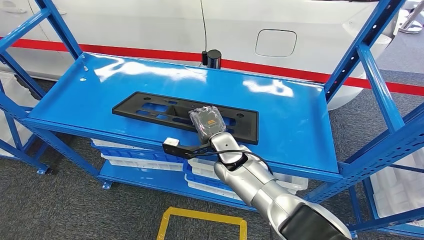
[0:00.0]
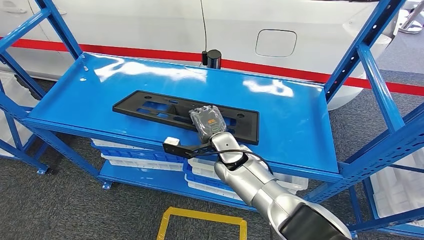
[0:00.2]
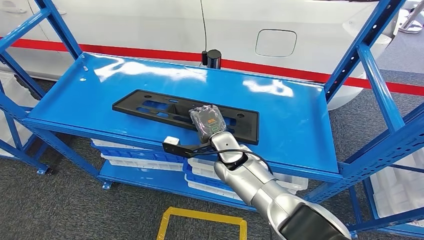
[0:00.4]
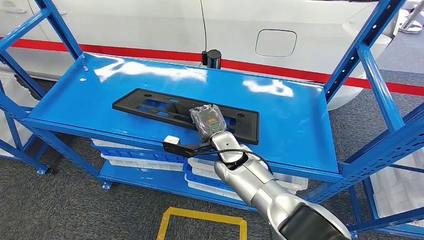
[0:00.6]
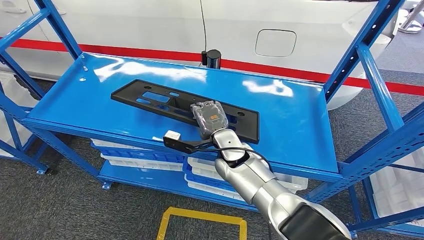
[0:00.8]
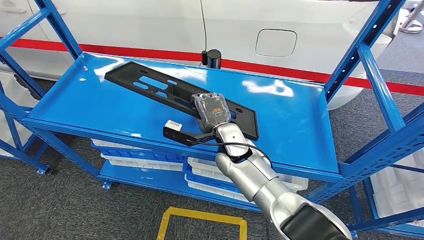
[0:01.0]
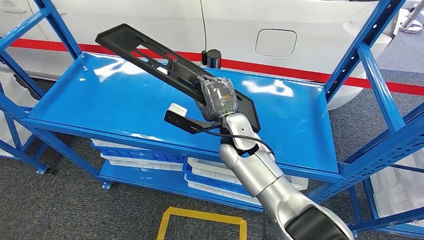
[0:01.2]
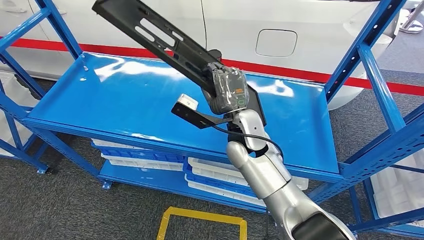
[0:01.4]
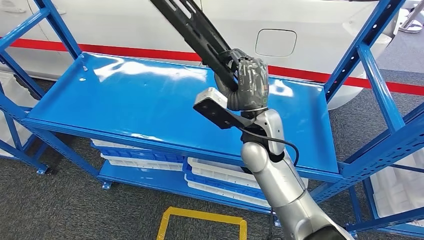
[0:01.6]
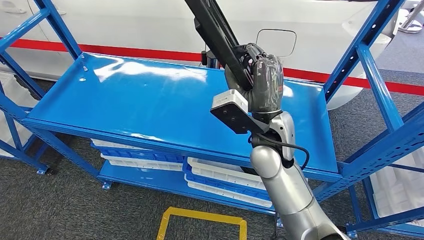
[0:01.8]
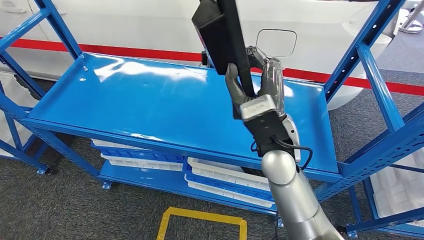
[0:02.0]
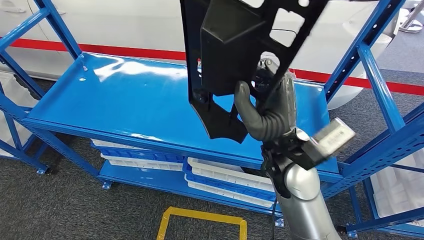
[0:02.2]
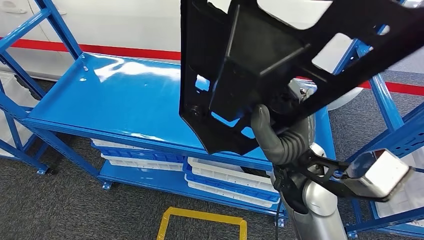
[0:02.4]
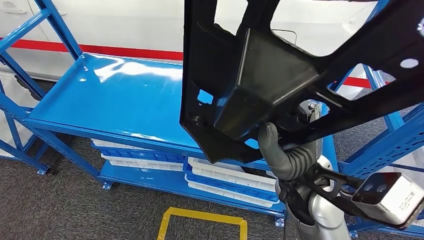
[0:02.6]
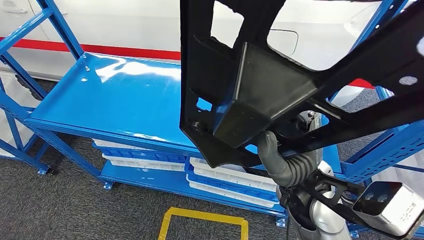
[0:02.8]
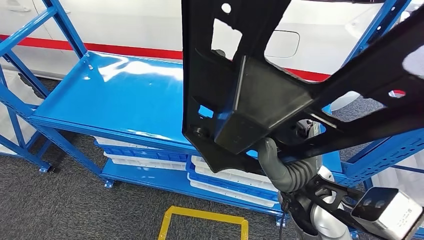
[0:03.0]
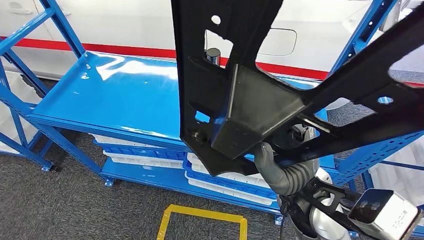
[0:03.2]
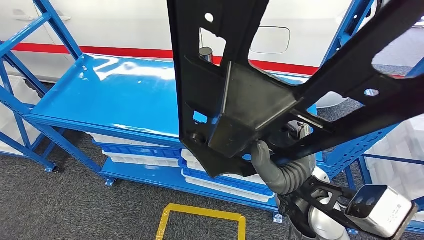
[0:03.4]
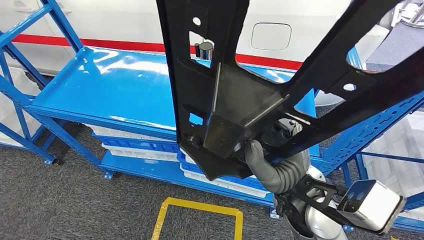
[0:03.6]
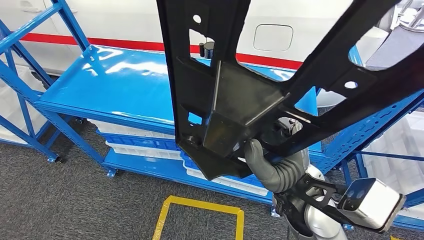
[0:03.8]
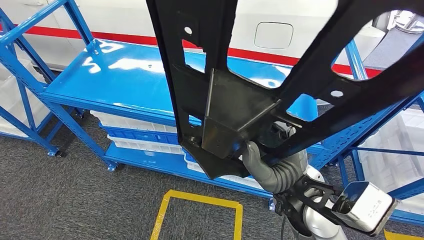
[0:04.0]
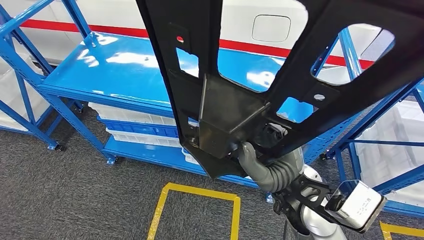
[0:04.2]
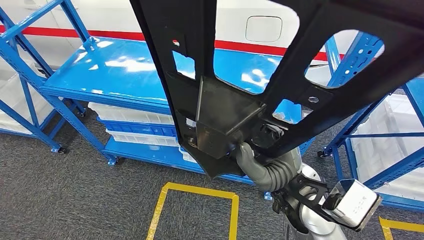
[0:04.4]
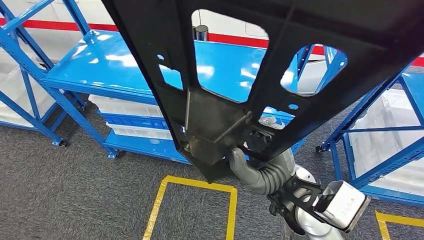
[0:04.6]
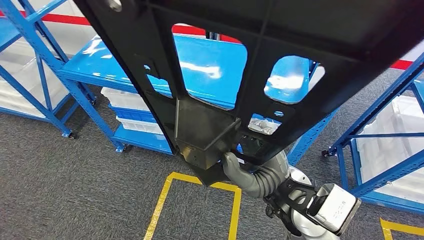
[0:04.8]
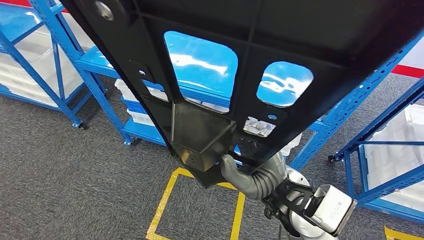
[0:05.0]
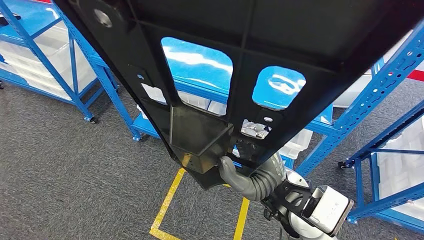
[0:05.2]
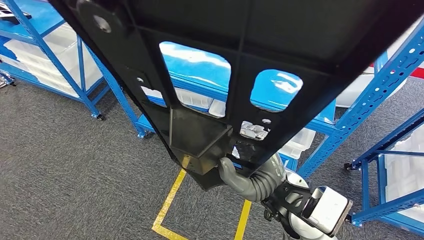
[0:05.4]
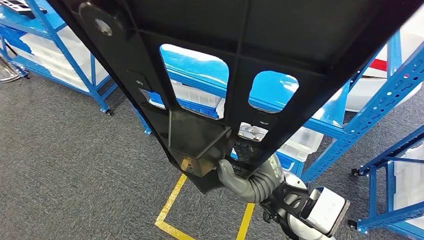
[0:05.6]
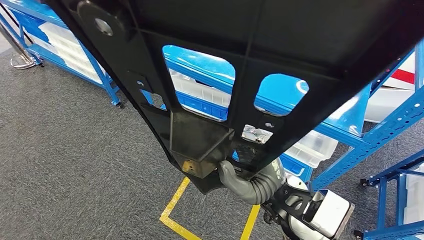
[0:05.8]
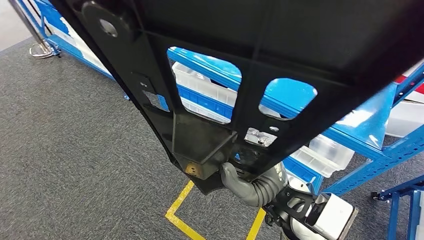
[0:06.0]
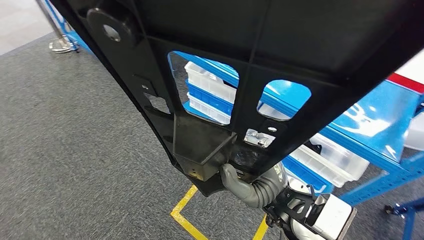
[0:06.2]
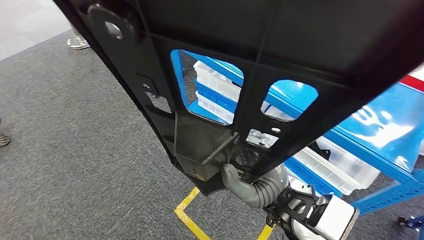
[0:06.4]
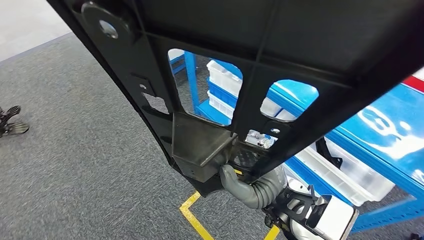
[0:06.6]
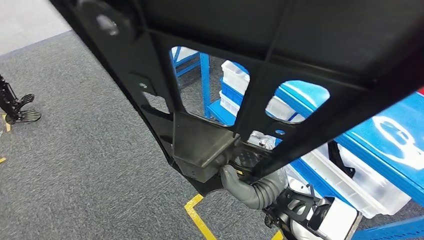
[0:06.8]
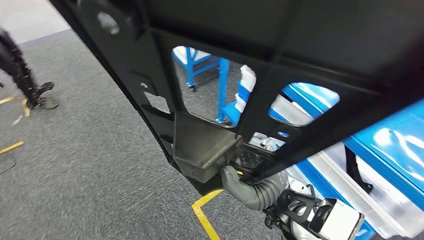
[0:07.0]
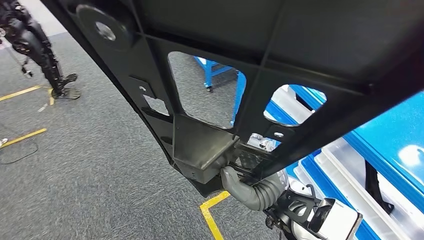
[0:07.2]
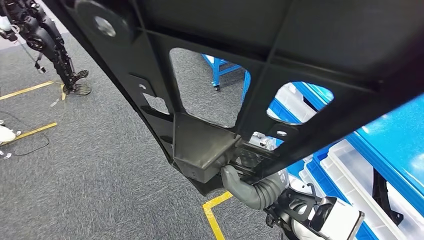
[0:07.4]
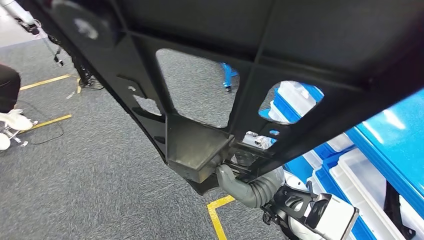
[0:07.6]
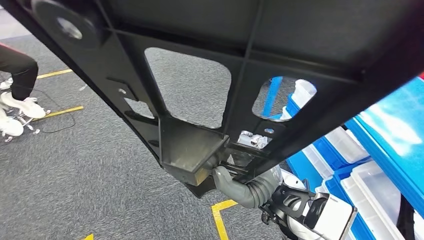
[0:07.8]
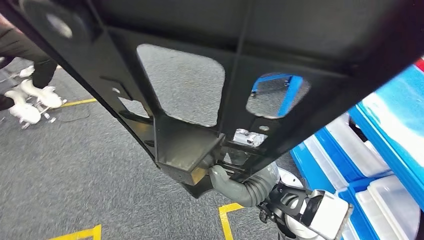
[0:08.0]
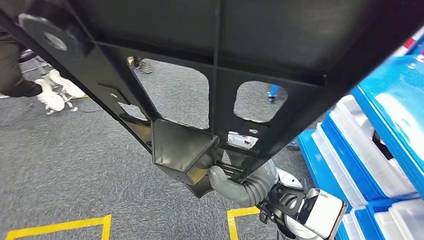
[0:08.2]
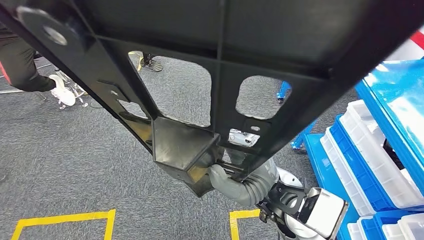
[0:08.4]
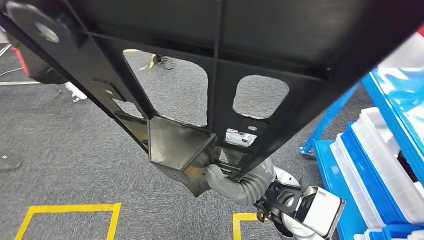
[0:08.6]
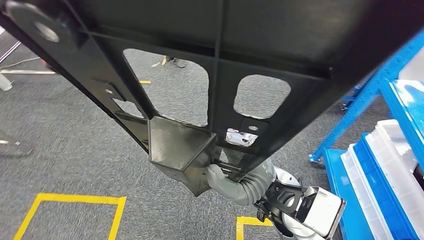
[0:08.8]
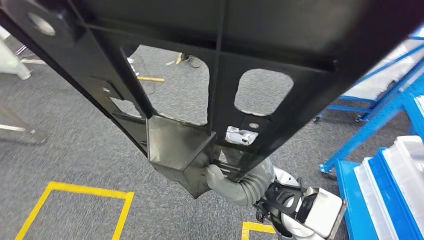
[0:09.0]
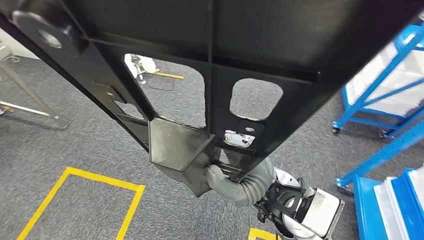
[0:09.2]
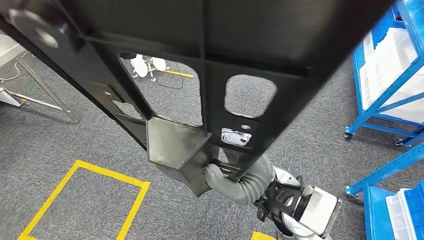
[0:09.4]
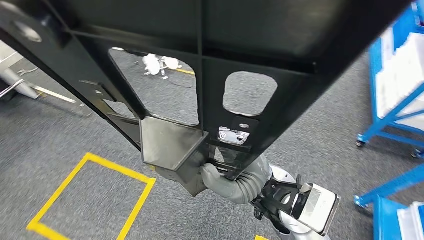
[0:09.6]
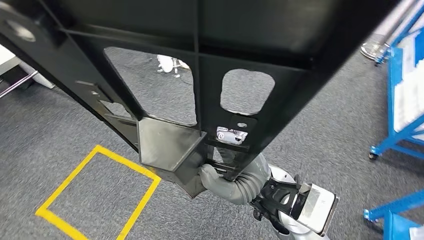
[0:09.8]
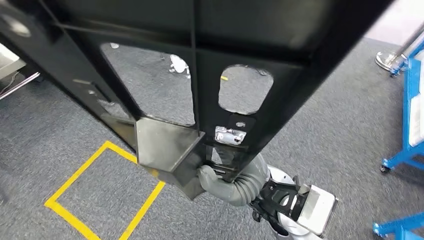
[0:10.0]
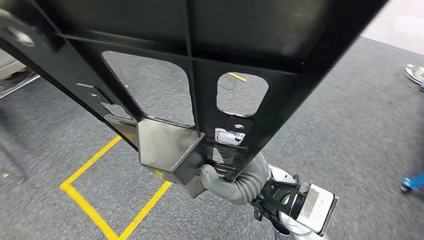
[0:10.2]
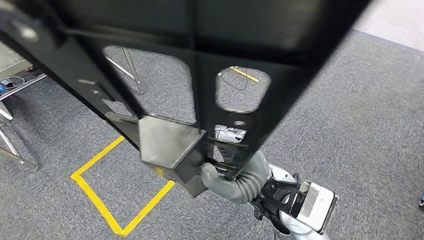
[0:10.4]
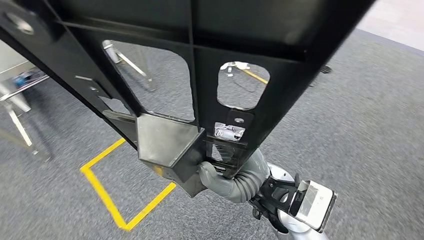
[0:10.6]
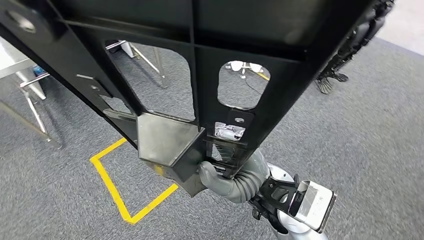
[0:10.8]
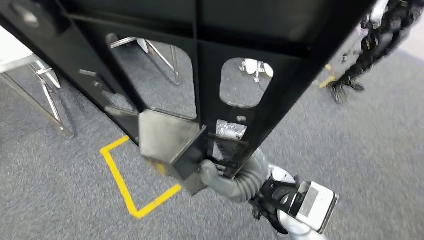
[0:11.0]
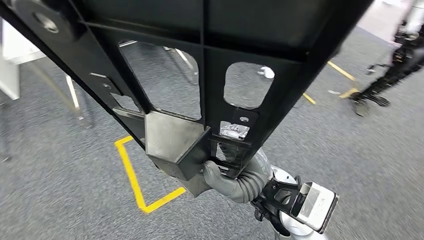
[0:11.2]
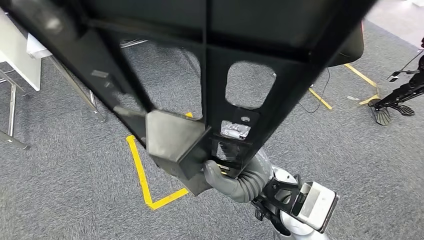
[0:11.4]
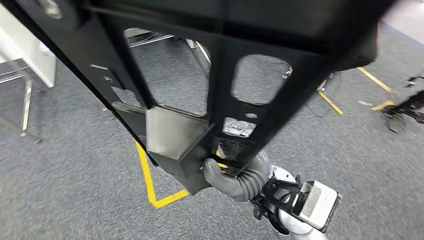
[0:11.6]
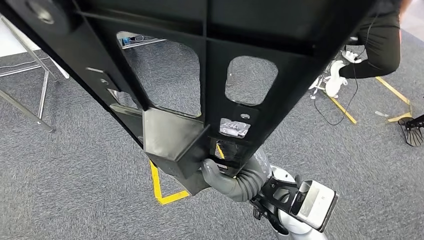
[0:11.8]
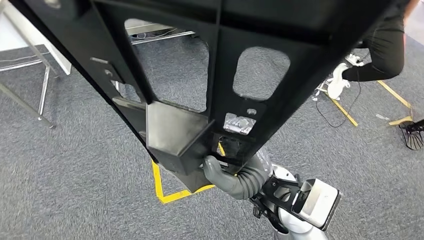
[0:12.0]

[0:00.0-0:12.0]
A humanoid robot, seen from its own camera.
Step, 0:00.0 to 0:04.6: Pick up the large material from the shelf.
0:00.0 to 0:01.6: The right hand shifts approximately 10 cm upward.

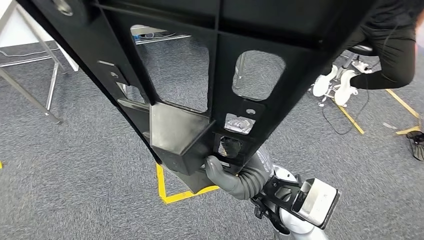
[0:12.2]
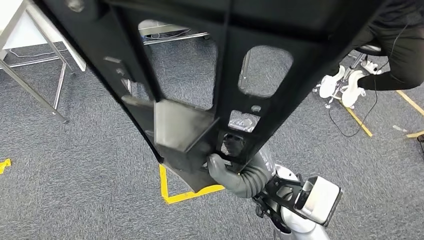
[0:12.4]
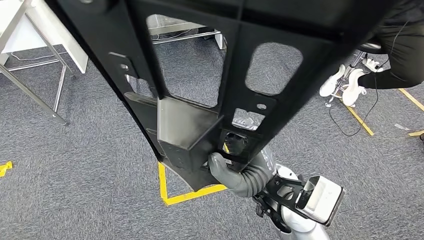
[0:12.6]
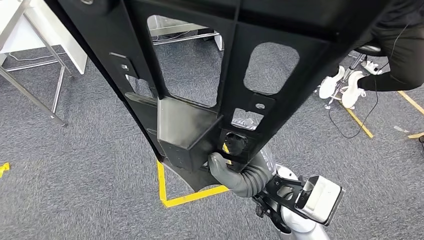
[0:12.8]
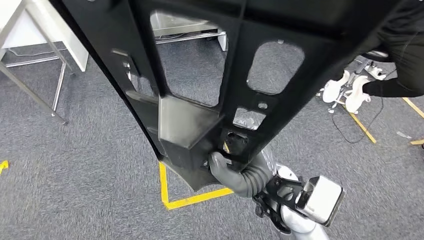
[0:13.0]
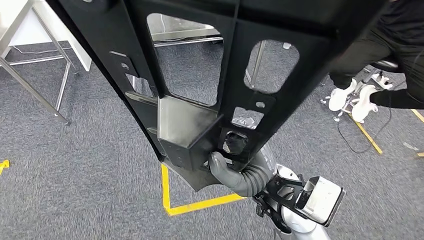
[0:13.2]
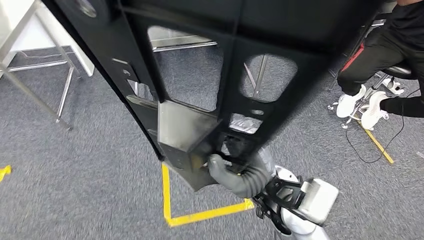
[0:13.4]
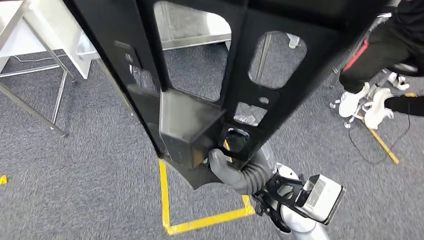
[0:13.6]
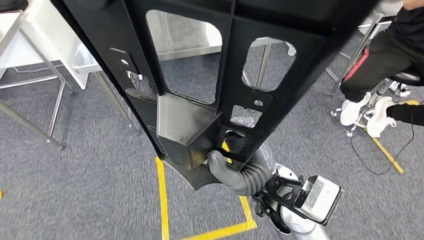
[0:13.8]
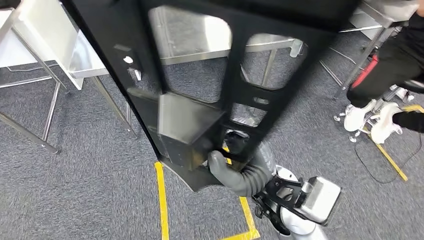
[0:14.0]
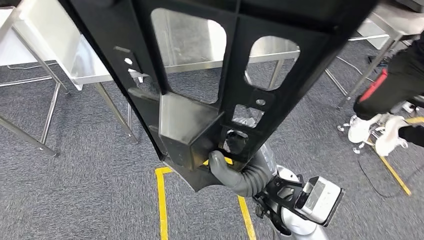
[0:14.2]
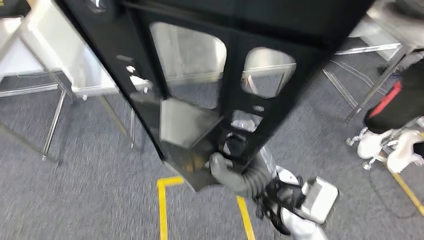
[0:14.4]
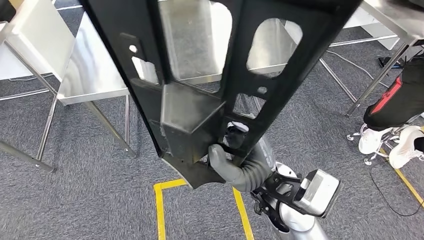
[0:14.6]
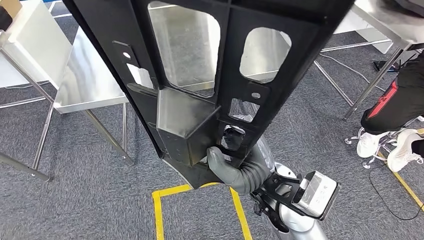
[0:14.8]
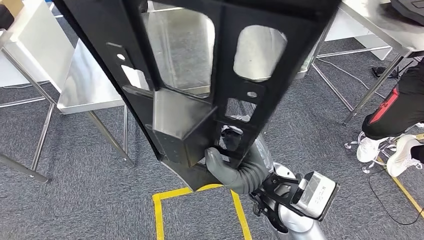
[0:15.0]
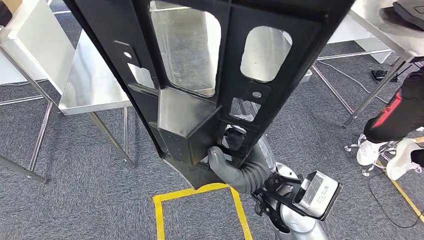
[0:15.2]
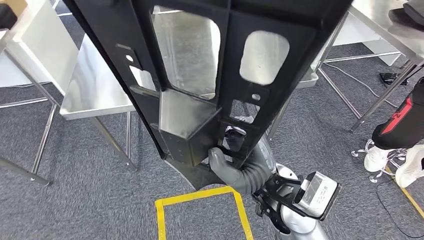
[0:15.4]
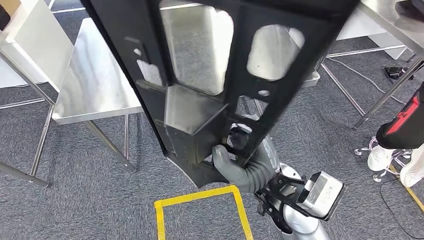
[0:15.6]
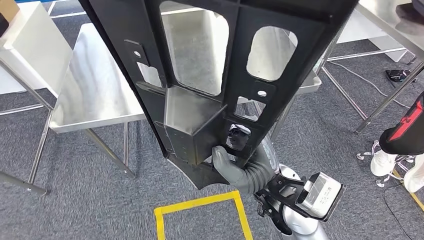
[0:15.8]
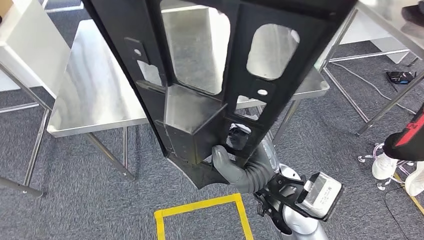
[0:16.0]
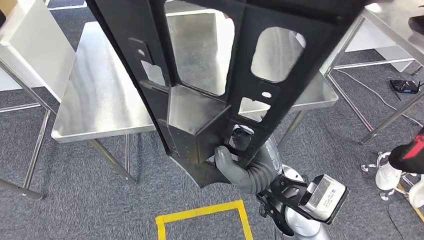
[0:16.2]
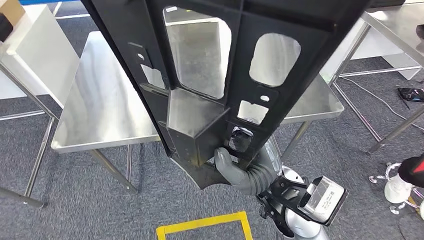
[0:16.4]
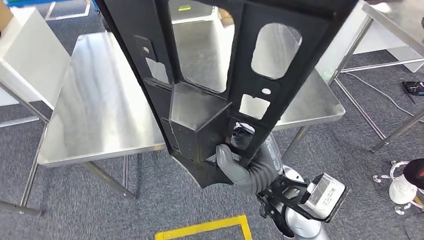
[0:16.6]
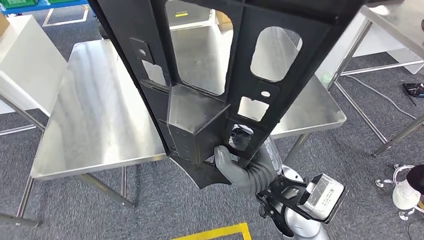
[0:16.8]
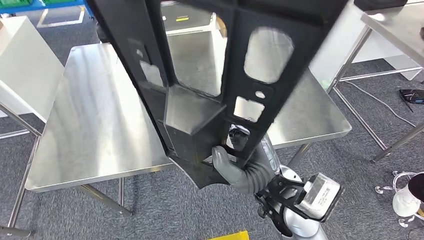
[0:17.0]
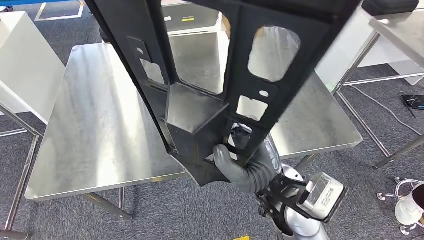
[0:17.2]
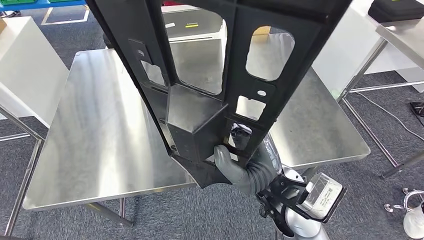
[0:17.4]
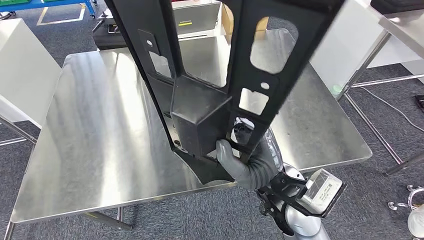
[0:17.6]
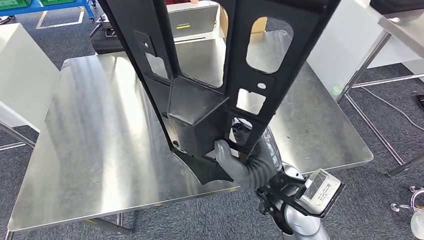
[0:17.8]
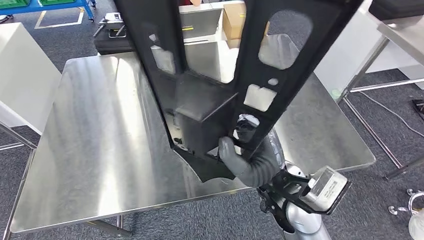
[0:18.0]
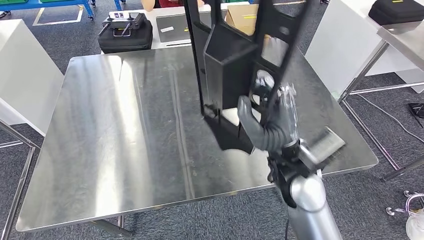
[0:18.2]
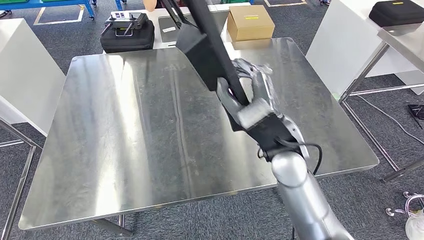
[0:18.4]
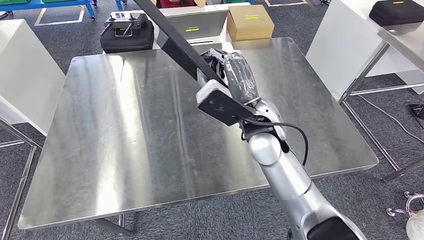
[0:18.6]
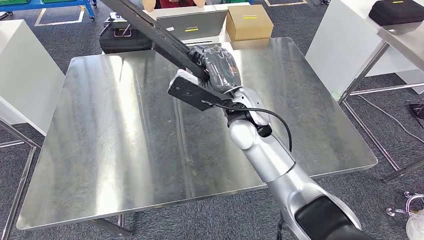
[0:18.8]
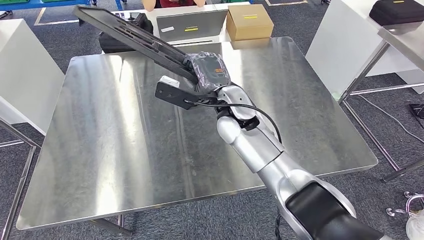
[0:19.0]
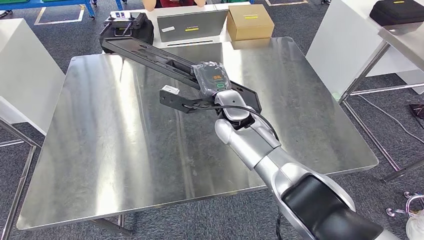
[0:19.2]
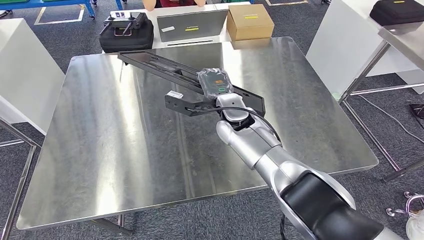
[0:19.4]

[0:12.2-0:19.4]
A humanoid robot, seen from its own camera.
Step, 0:12.2 to 0:16.6: Move the large material to the workbench.
